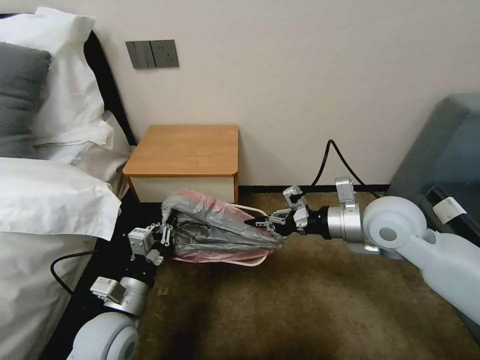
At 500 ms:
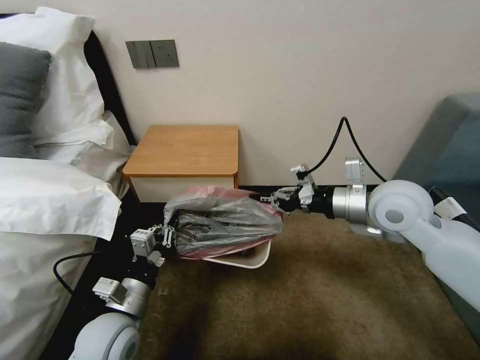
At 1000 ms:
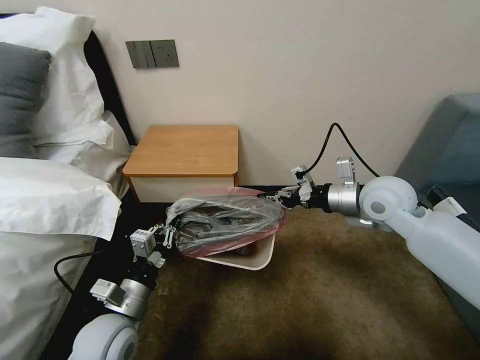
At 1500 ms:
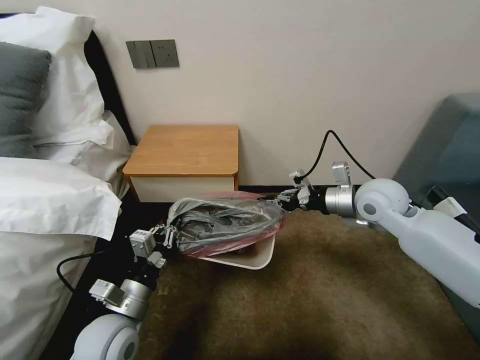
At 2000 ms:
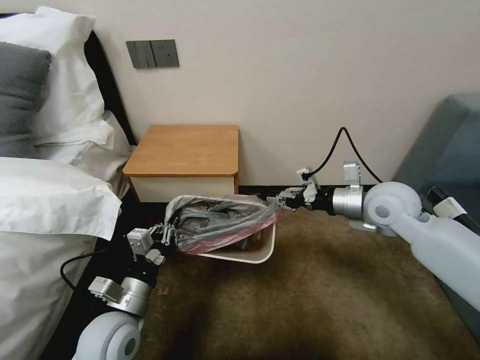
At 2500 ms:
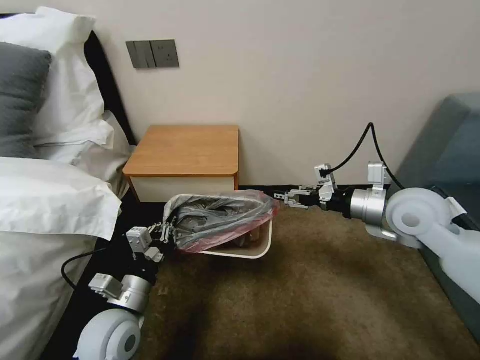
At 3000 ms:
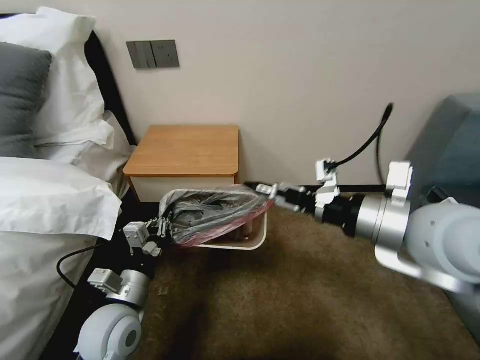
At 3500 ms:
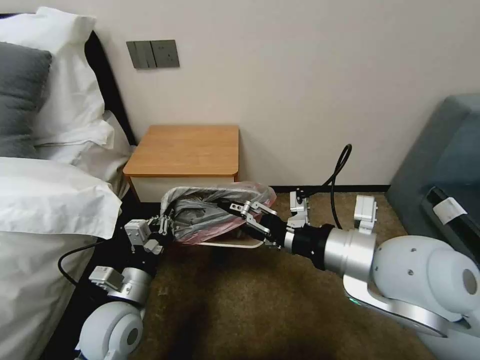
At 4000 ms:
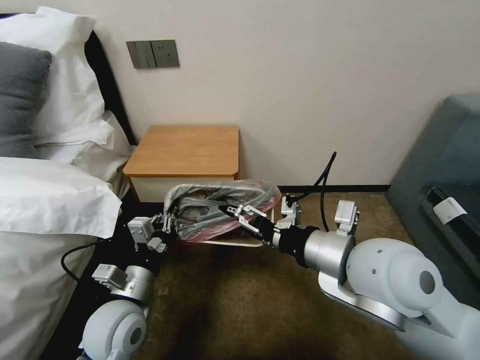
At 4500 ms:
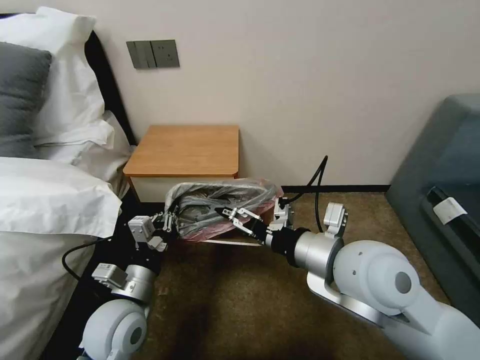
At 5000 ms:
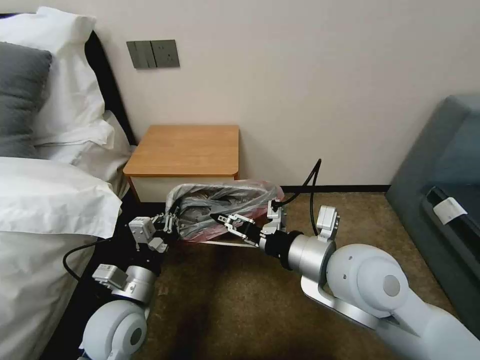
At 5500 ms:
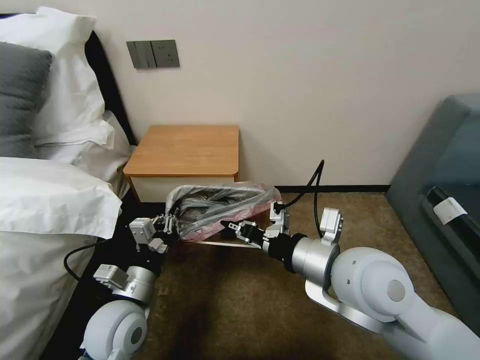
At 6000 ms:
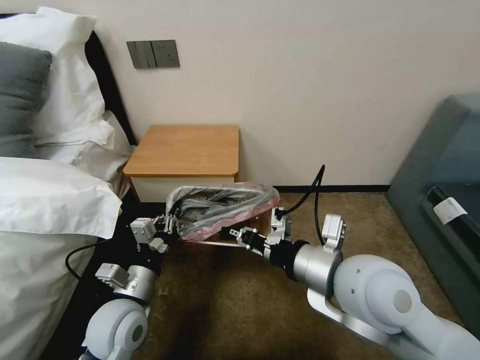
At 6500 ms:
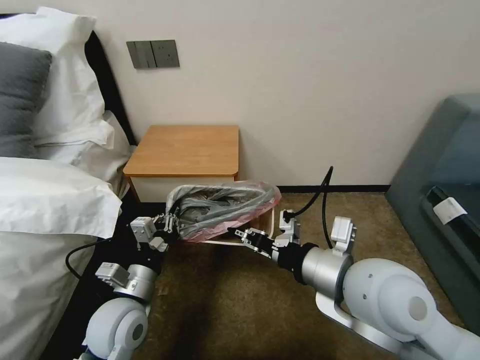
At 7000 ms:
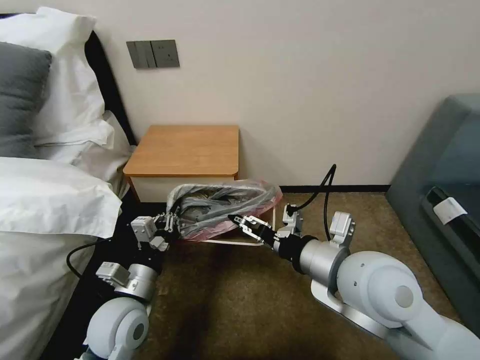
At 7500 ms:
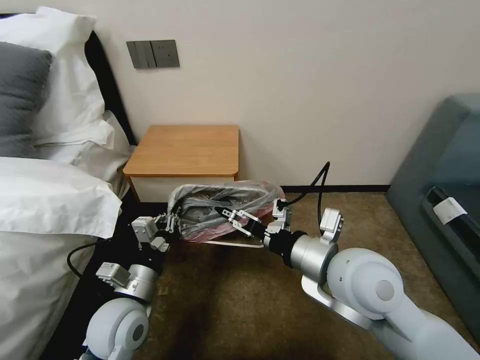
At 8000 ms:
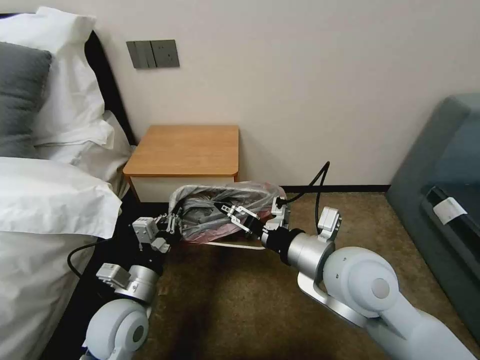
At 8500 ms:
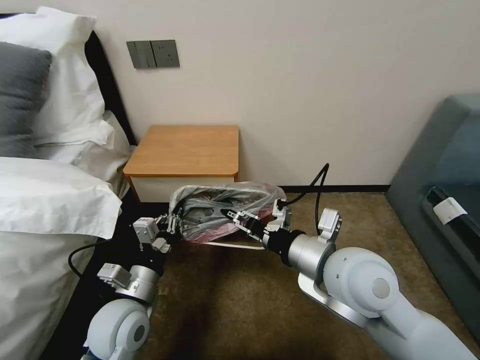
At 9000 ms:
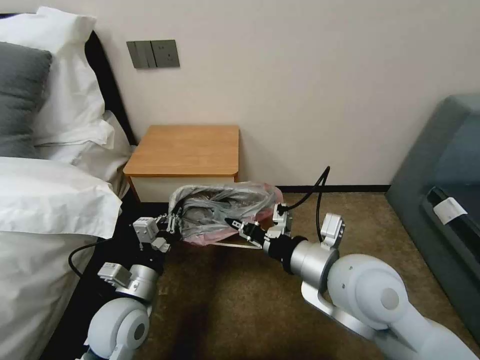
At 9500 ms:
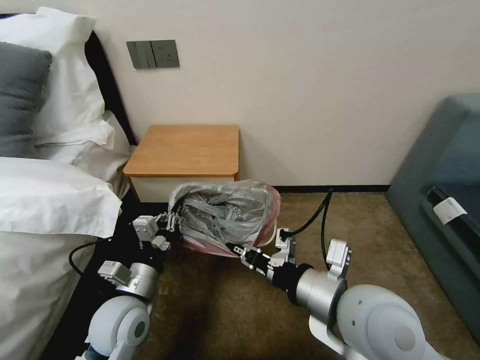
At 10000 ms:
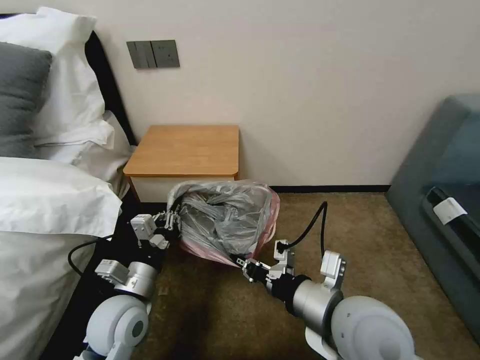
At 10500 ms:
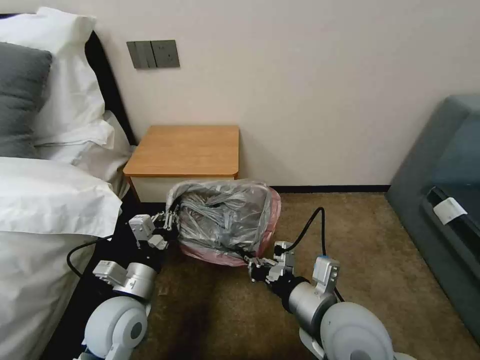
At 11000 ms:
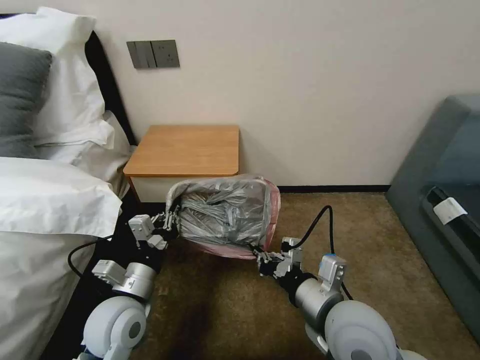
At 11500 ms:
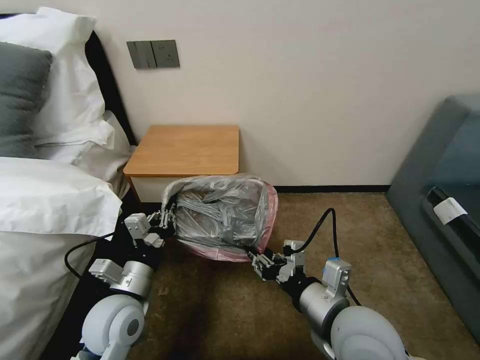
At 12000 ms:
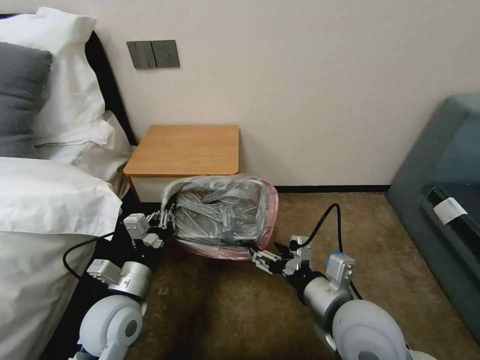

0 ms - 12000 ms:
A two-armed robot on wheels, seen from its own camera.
Task of the whole recording: Pick up the garbage bag from the table and place it over the trash can.
0 ms - 2000 ms: The right gripper travels forward by roughly 5 cm.
2000 ms - 4000 ms: The right gripper goes about 20 cm backward and to the left, and opens up.
4000 ms - 6000 ms: The right gripper closes up.
6000 ms - 8000 ms: The right gripper opens its fingers.
8000 ms - 10000 ms: The right gripper goes roughly 5 cm backward, and closes its fingers.
10000 ms - 12000 ms: The right gripper opens.

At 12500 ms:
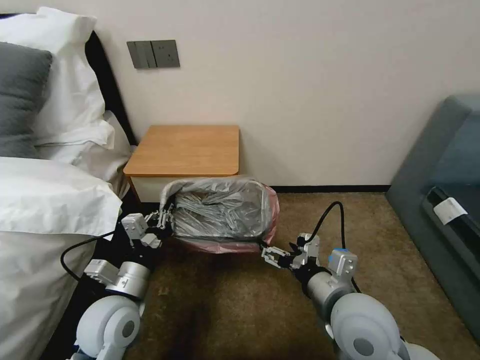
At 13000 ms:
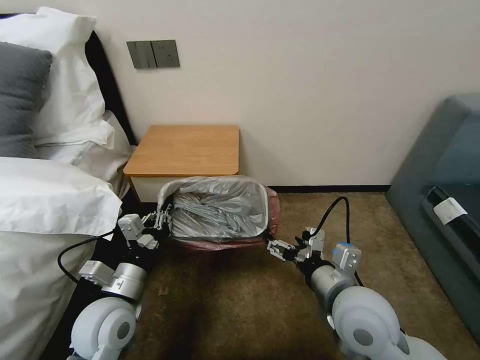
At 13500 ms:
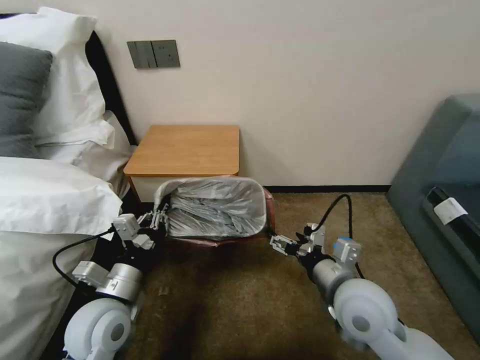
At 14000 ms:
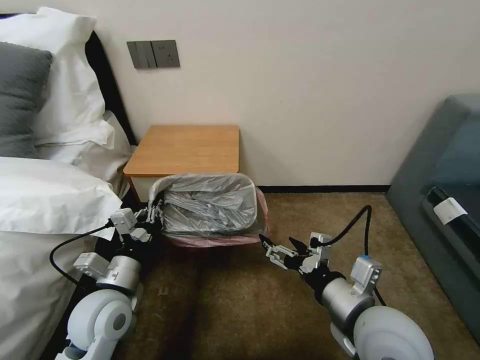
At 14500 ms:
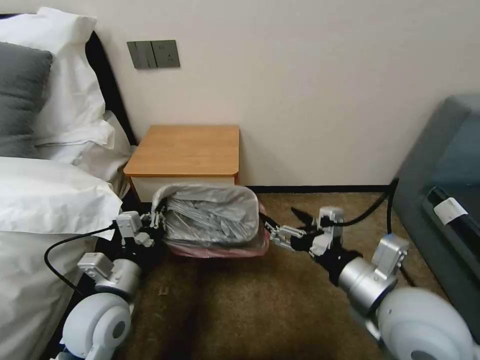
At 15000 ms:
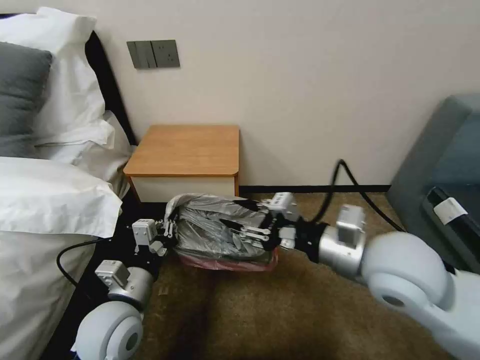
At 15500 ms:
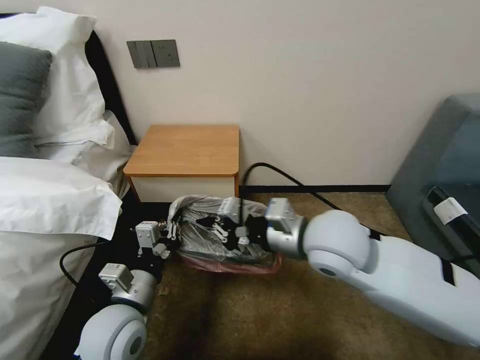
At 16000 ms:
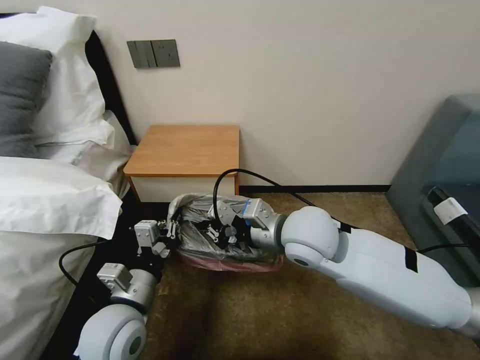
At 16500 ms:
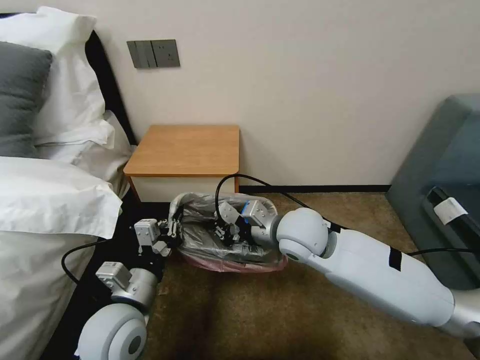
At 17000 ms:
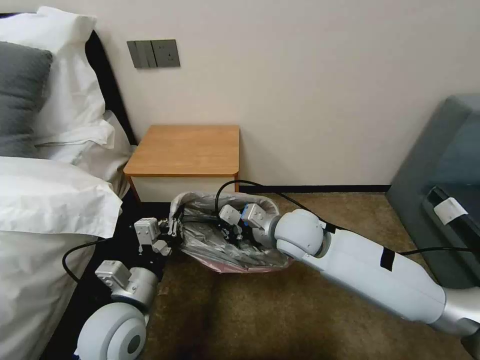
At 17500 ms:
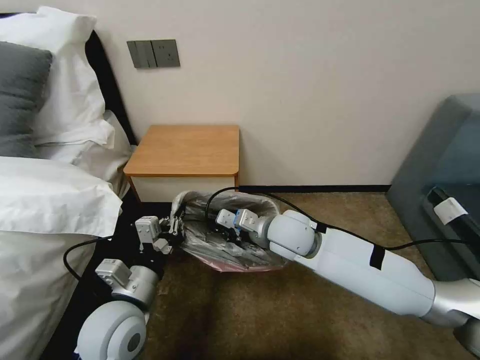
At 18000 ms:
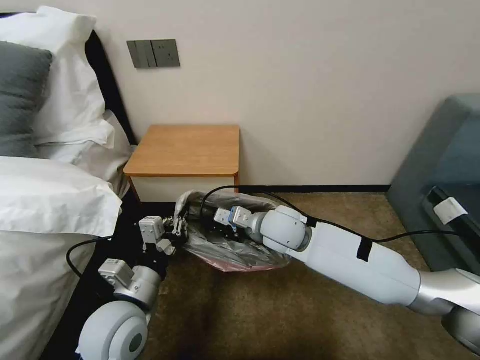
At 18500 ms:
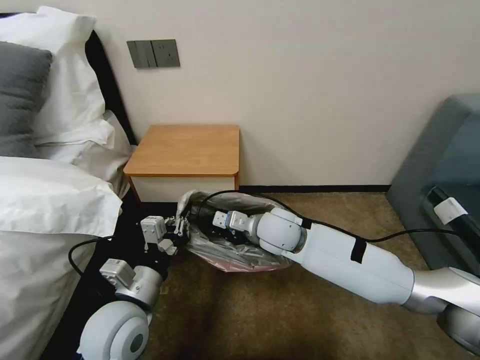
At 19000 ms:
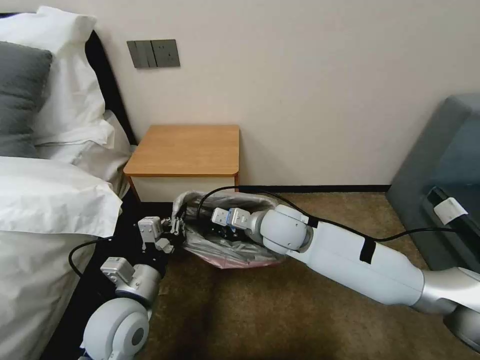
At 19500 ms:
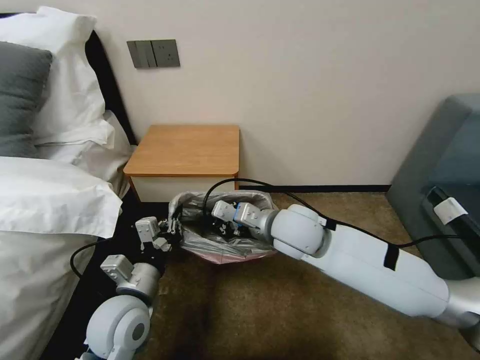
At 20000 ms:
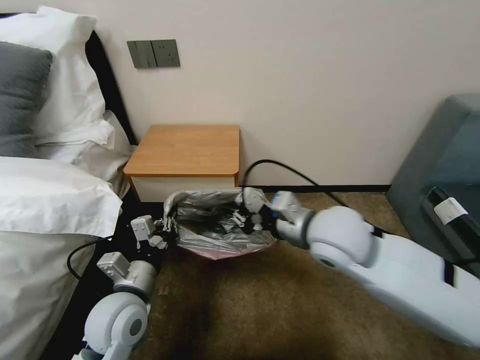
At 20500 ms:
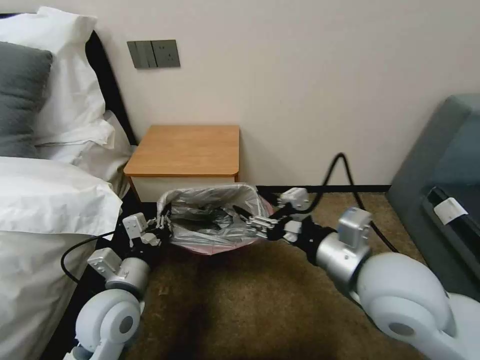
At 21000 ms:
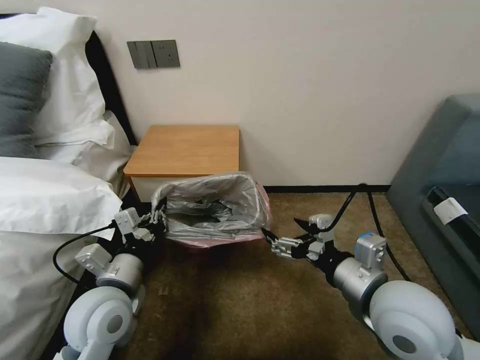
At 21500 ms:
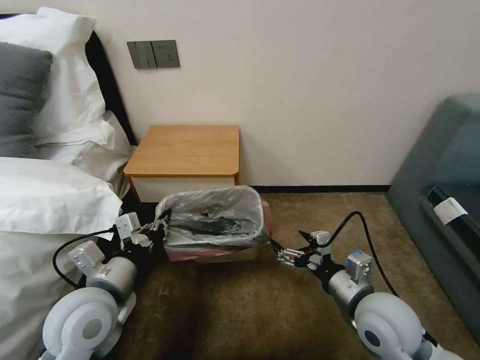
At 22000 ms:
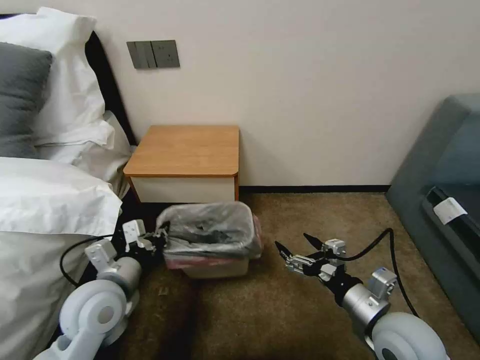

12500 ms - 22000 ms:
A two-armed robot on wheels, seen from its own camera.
Task of the whole recording: Pick up the garbage bag from the table and place it over the trash can.
12500 ms - 14500 ms: The right gripper heads upward, covering about 5 cm.
14500 ms - 16500 ms: The right gripper travels forward and to the left by about 20 cm, and closes its fingers.
16500 ms - 18000 ms: The right gripper ends up some 5 cm from where it was.
18000 ms - 20000 ms: The right gripper shifts some 15 cm upward, backward and to the right.
20000 ms - 22000 ms: The right gripper heads backward, downward and to the right, covering roughly 20 cm, and opens.

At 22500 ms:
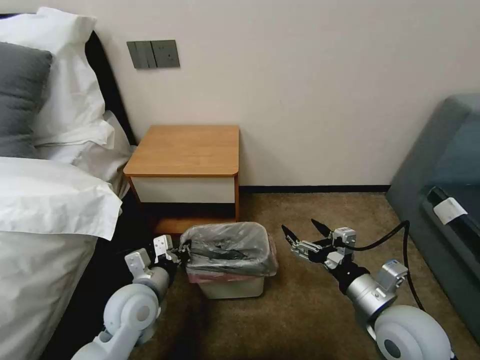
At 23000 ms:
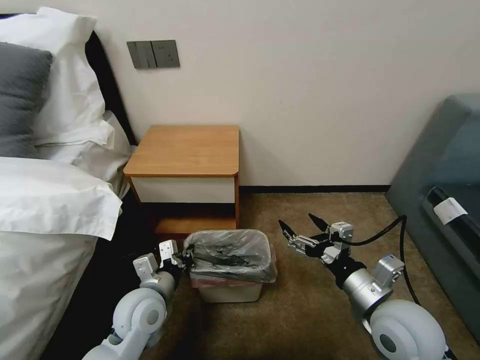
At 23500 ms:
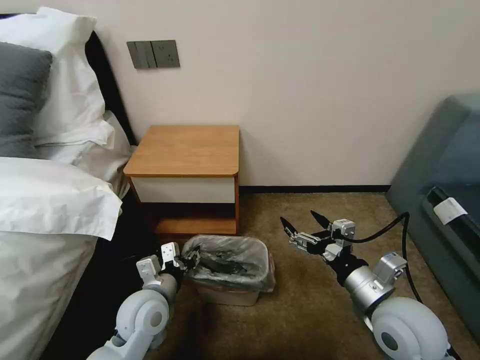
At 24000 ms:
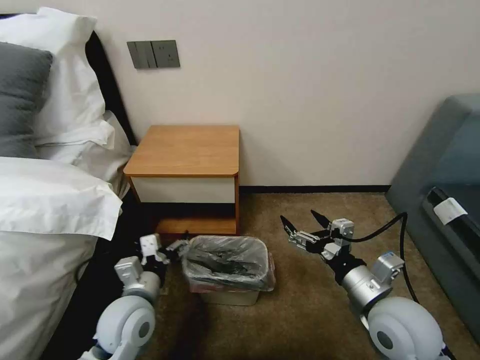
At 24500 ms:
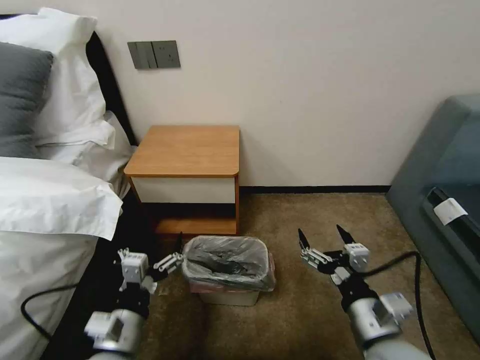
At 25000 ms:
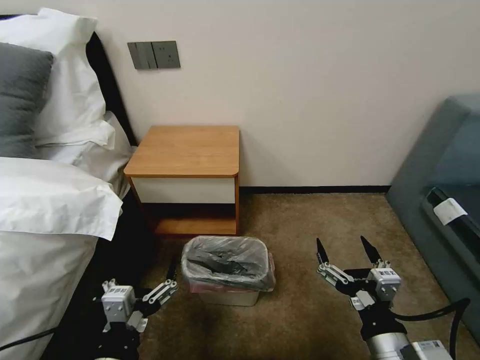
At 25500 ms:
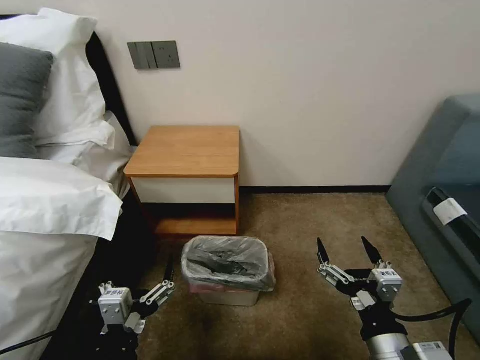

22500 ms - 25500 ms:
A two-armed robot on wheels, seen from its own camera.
Task of the whole recording: Pick up the garbage bag from the table and place it over the trash can.
22500 ms - 24000 ms: The left gripper opens up.
24000 ms - 25500 ms: The grippers both shift backward by about 15 cm.

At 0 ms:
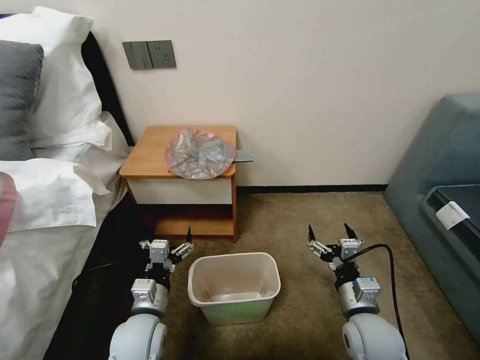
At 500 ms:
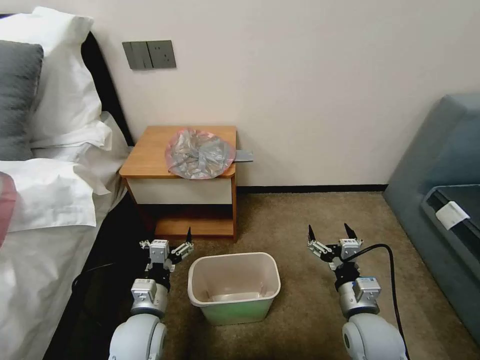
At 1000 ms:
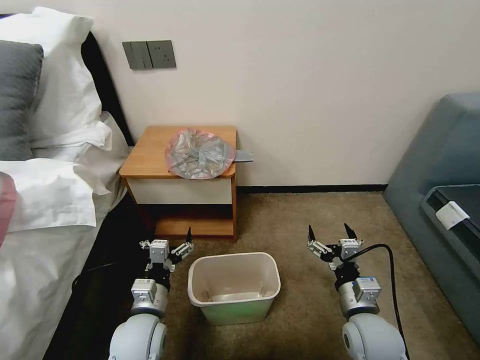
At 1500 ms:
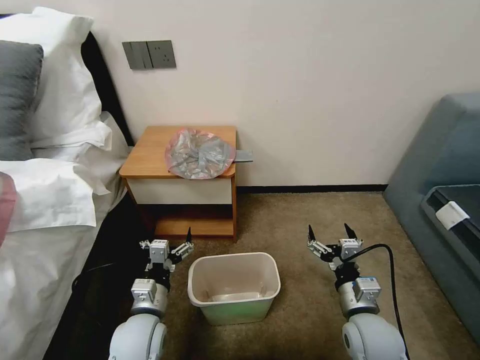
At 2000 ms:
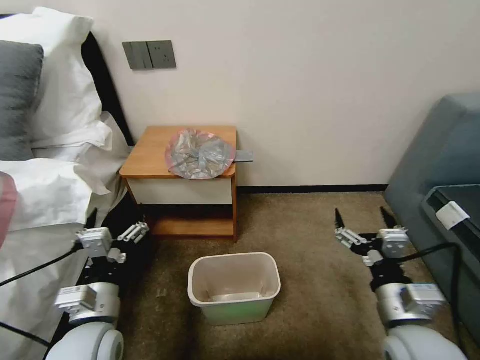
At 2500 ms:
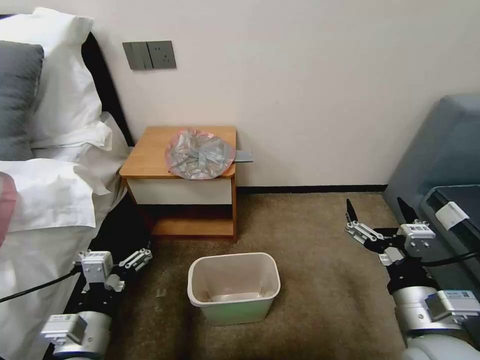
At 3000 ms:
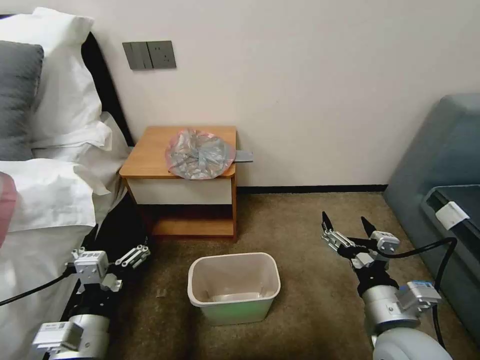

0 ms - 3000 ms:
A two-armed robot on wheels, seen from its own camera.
Task of the whole recording: Pick up the garbage bag from the table and place it over the trash can.
1500 ms - 3000 ms: The right gripper moves upward, some 10 cm; the left gripper heads upward and backward, covering approximately 15 cm.
